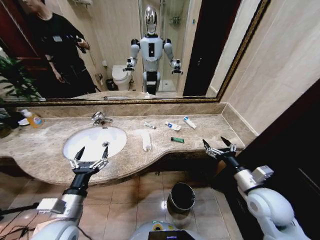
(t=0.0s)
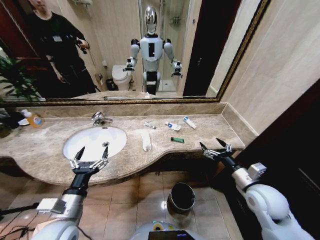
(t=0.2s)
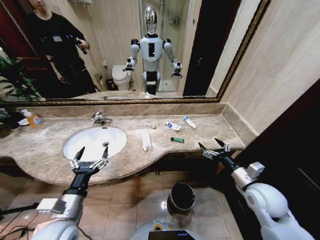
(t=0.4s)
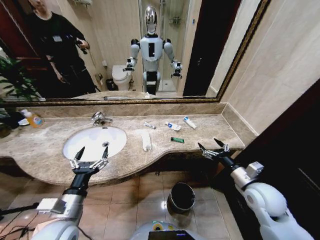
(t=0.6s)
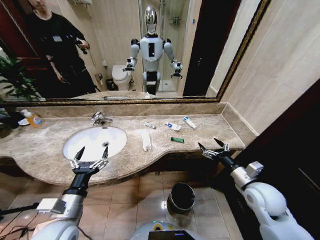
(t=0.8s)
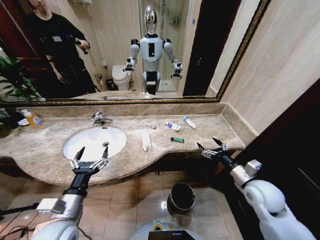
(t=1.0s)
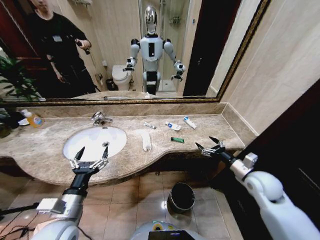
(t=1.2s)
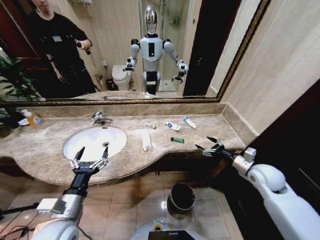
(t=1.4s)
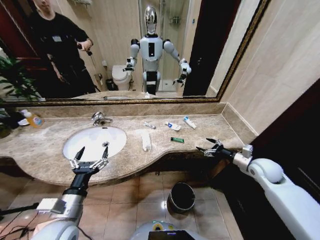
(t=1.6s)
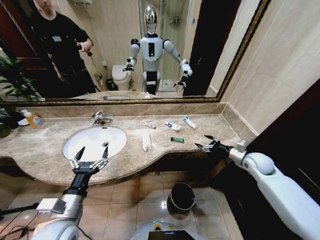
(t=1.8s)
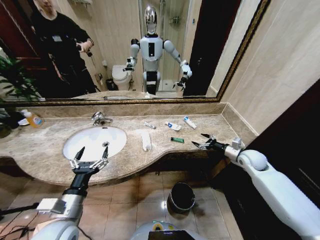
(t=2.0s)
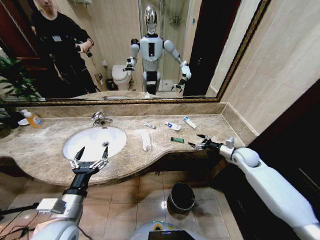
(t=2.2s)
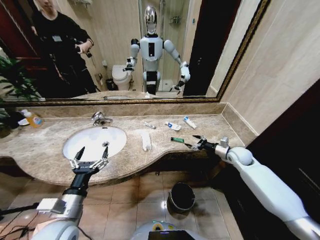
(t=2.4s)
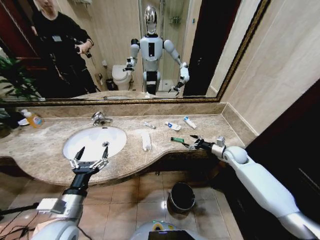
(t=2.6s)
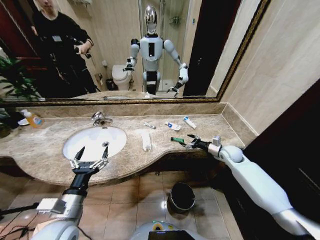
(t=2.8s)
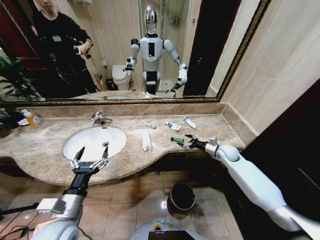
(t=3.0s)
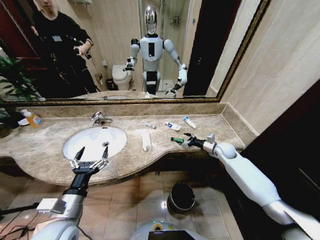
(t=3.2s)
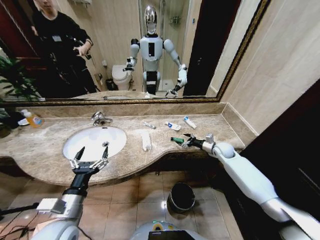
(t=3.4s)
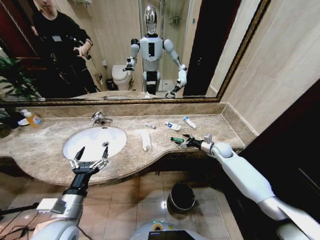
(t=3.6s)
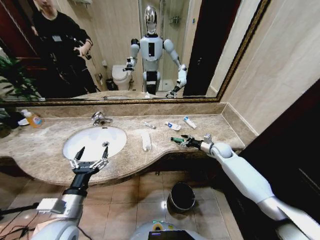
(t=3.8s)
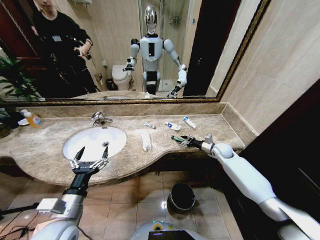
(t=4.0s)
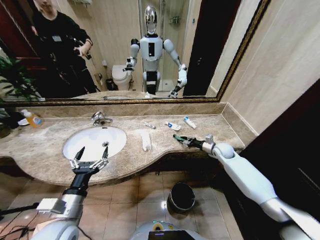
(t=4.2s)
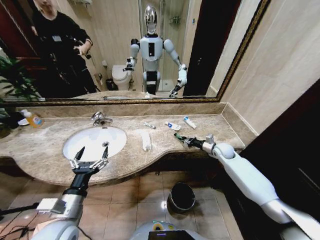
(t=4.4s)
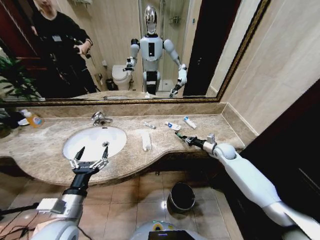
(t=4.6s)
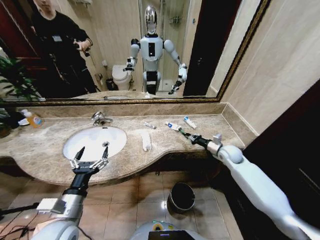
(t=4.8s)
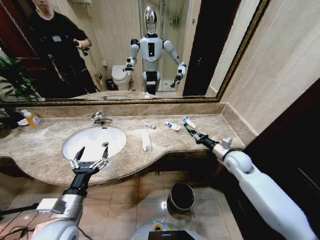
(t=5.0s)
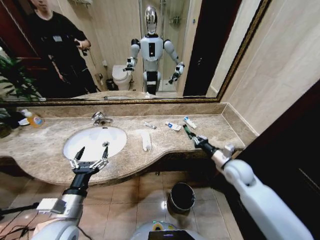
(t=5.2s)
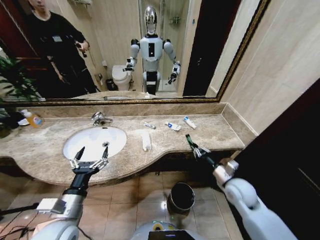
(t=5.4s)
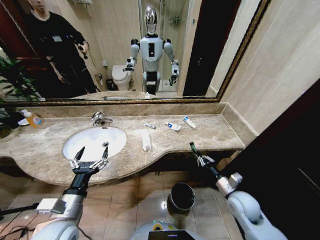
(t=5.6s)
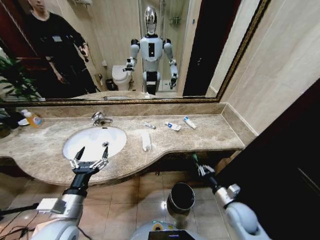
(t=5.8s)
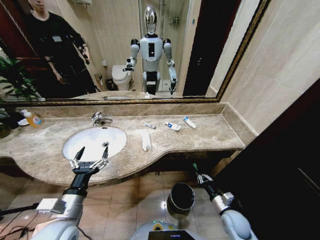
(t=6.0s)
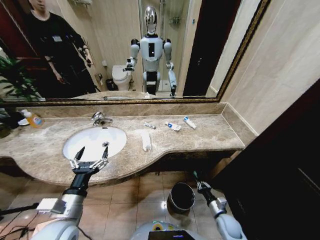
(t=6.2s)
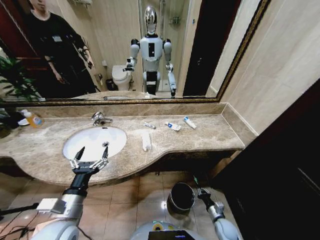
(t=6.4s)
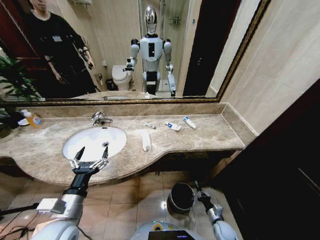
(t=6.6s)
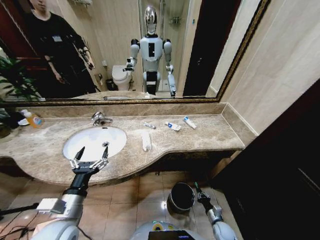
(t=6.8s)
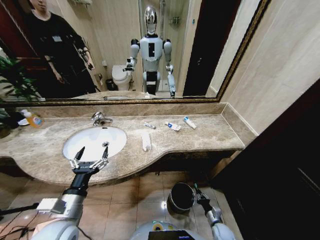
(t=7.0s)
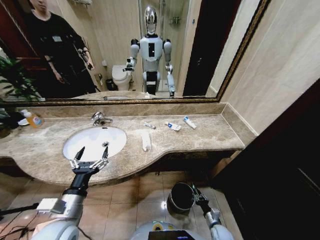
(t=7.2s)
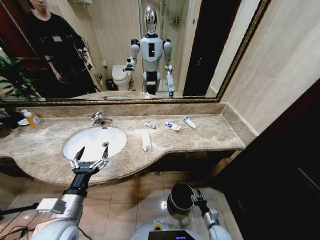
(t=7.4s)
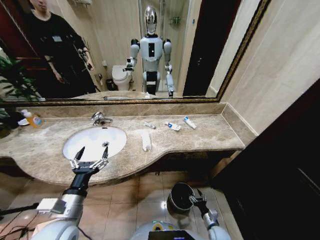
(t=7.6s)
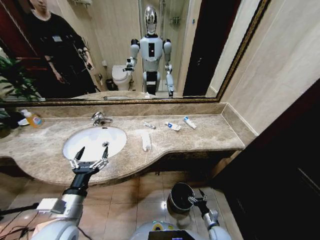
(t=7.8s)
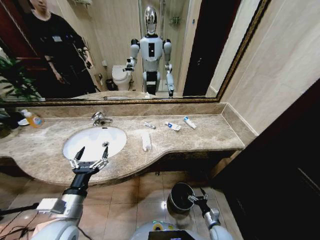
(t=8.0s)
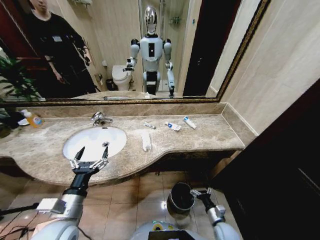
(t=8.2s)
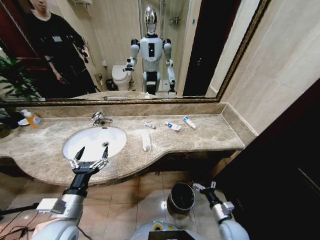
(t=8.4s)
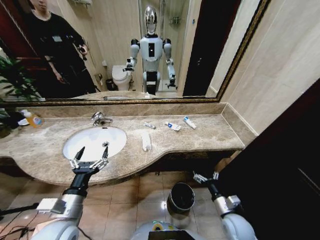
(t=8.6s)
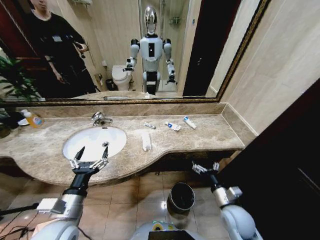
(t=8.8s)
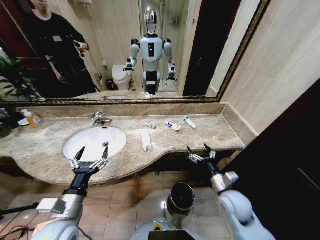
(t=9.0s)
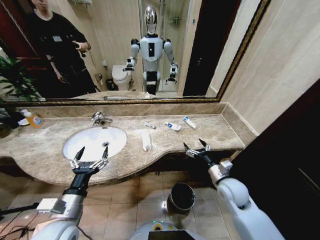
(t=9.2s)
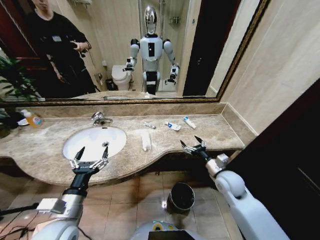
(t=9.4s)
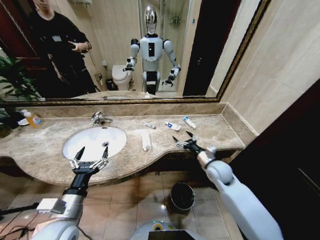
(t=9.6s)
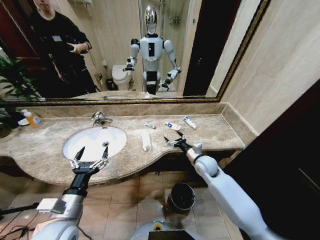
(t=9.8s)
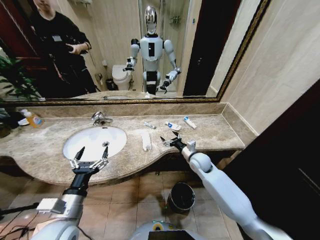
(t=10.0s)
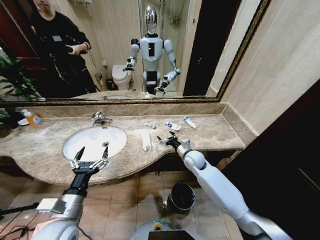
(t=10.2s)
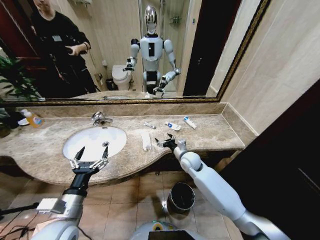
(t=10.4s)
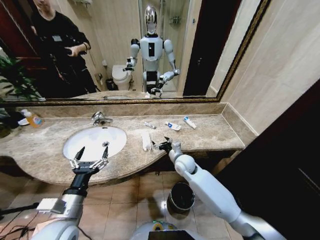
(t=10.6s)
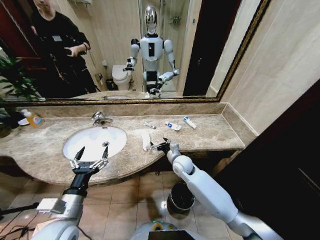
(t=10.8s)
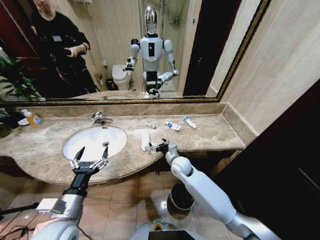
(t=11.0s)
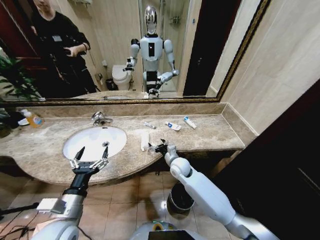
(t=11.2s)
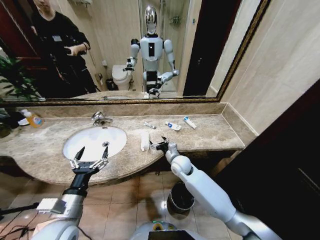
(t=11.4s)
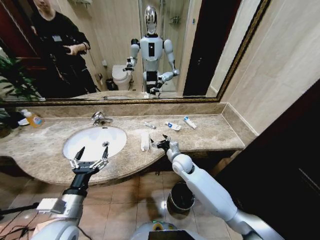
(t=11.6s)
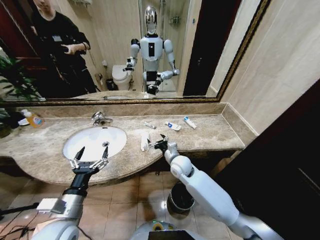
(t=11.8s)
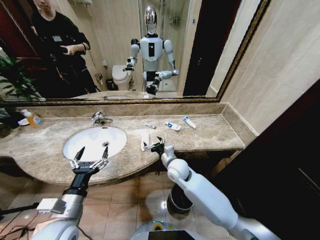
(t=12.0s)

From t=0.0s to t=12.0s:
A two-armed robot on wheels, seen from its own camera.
Task of the whole recording: Pick up the trash from the sink and place it in the trash bin.
From t=1.6s to t=3.0s: The right gripper travels forward, to the left and downward by roughly 15 cm.
From t=3.0s to t=4.4s: The right gripper closes its fingers.
From t=4.4s to t=6.0s: The right gripper shifts approximately 30 cm backward and downward.
From t=6.0s to t=7.6s: The right gripper travels downward by approximately 15 cm, and opens up.
From t=7.6s to t=9.0s: The right gripper goes roughly 30 cm upward.
From t=9.0s to t=10.4s: The right gripper shifts approximately 20 cm forward and to the left.
From t=10.4s to t=12.0s: The right gripper shifts some 10 cm to the left and backward.

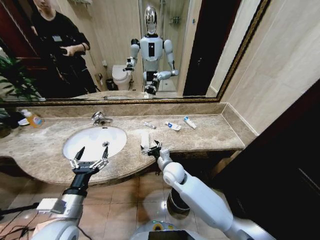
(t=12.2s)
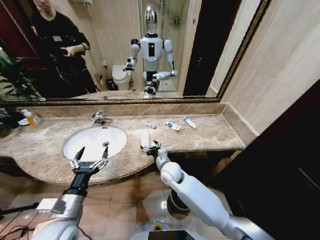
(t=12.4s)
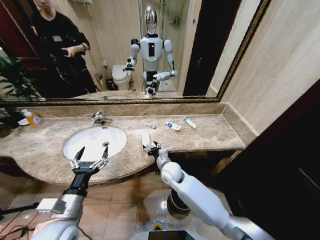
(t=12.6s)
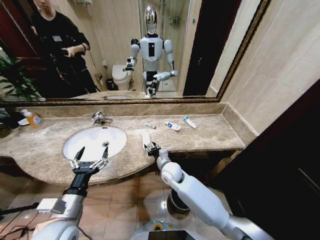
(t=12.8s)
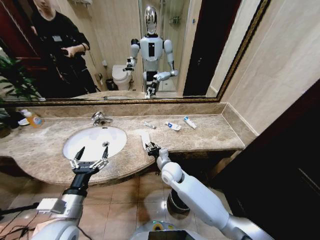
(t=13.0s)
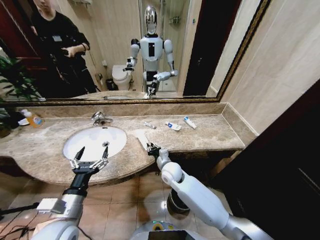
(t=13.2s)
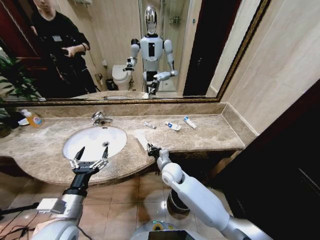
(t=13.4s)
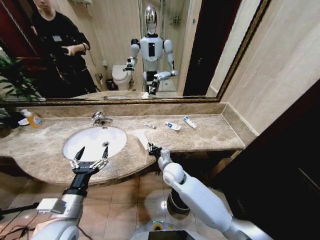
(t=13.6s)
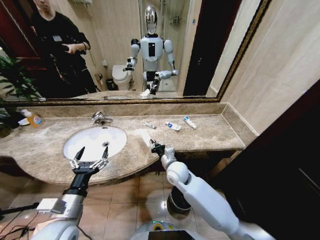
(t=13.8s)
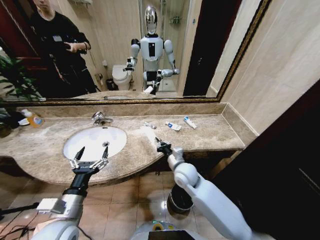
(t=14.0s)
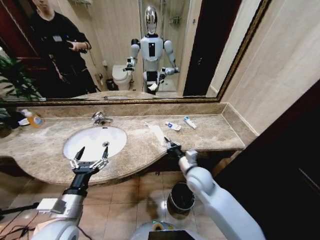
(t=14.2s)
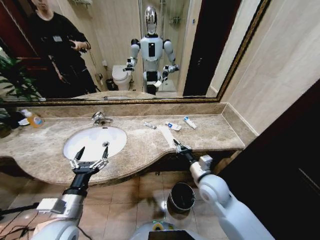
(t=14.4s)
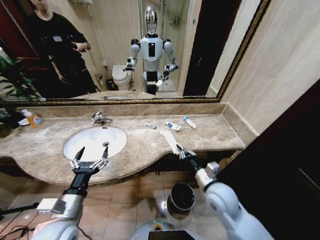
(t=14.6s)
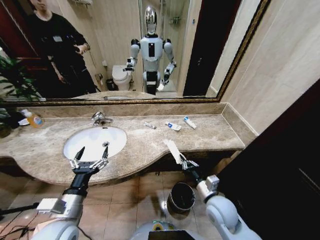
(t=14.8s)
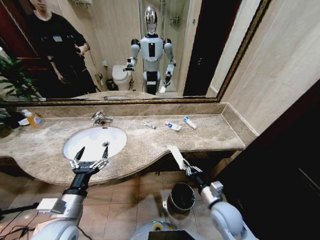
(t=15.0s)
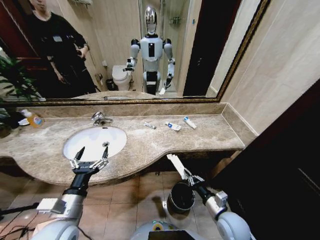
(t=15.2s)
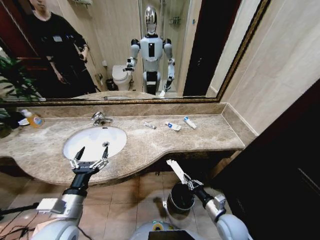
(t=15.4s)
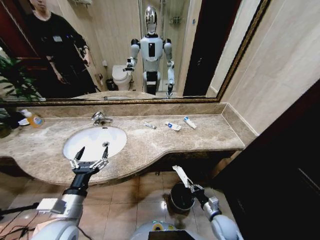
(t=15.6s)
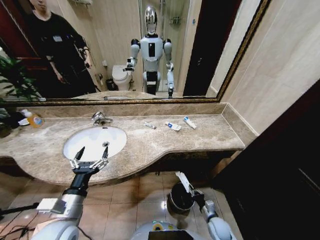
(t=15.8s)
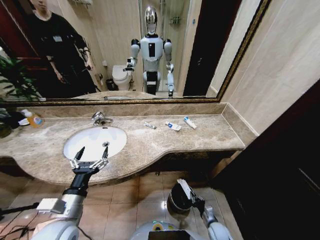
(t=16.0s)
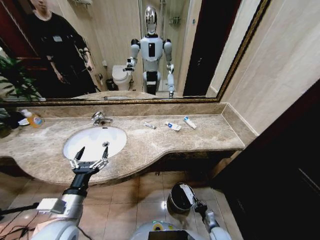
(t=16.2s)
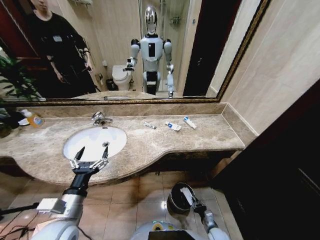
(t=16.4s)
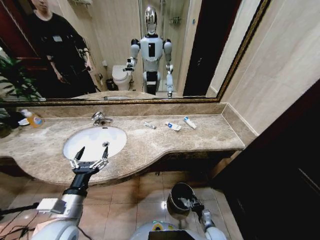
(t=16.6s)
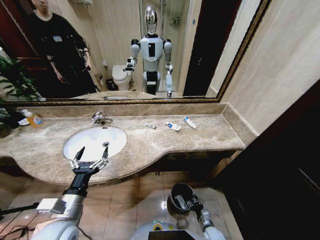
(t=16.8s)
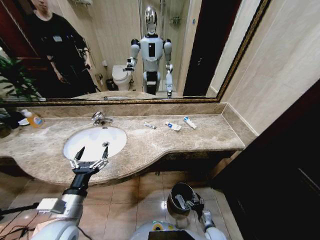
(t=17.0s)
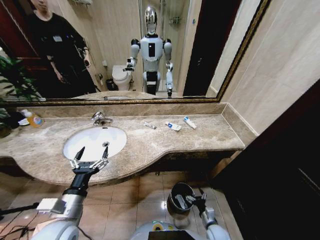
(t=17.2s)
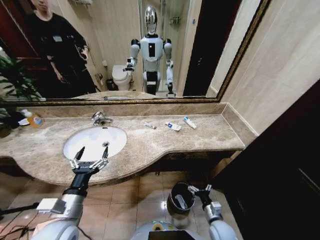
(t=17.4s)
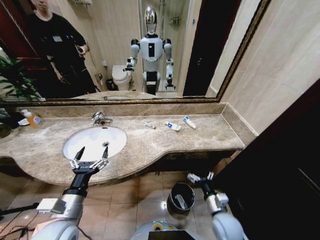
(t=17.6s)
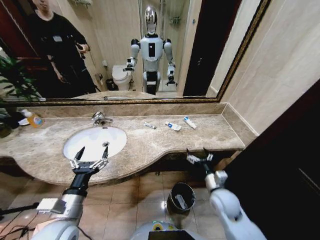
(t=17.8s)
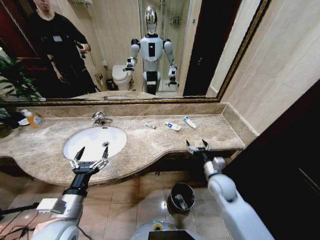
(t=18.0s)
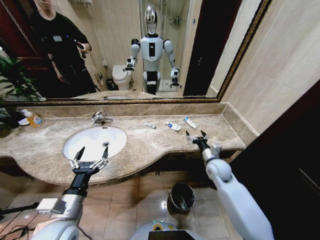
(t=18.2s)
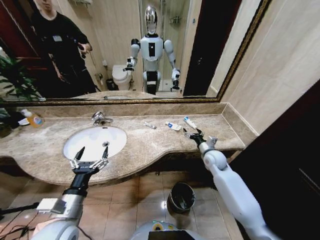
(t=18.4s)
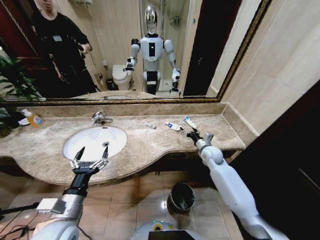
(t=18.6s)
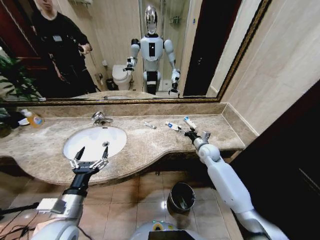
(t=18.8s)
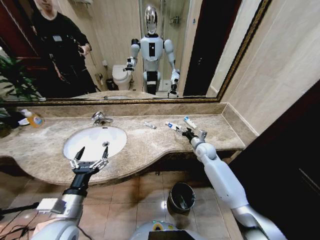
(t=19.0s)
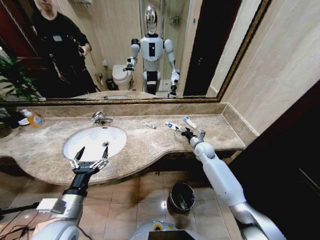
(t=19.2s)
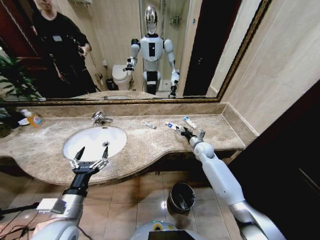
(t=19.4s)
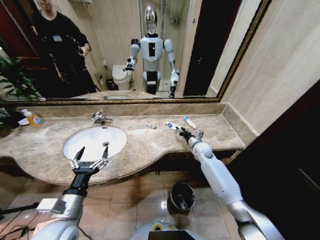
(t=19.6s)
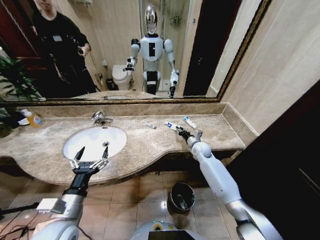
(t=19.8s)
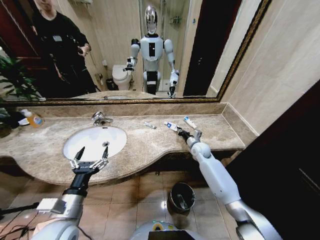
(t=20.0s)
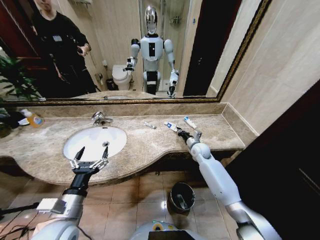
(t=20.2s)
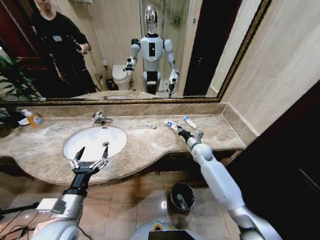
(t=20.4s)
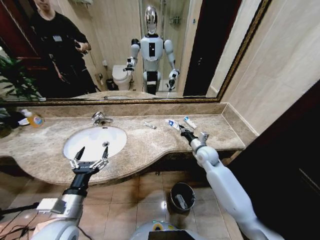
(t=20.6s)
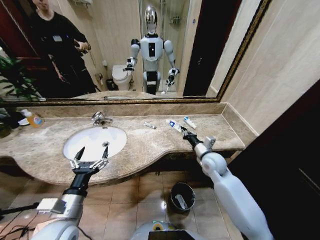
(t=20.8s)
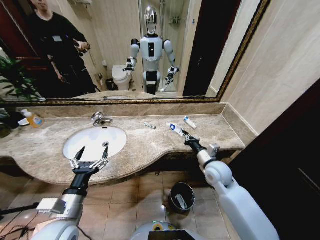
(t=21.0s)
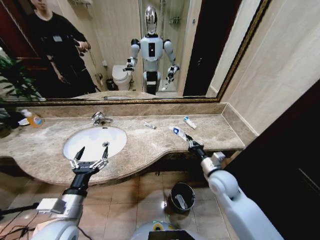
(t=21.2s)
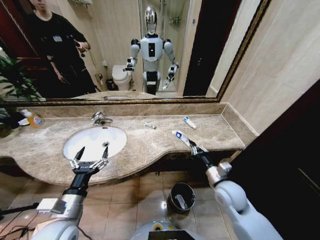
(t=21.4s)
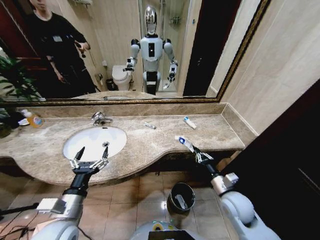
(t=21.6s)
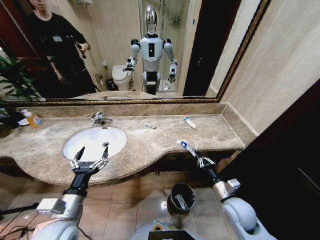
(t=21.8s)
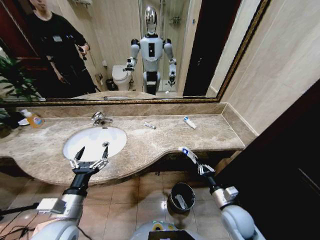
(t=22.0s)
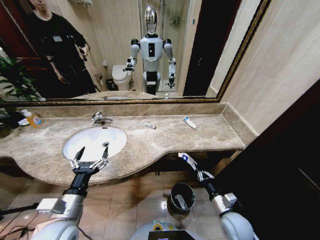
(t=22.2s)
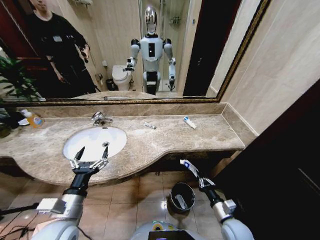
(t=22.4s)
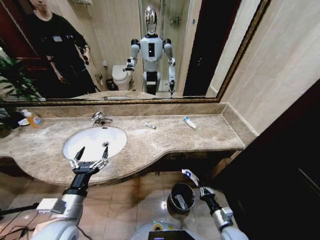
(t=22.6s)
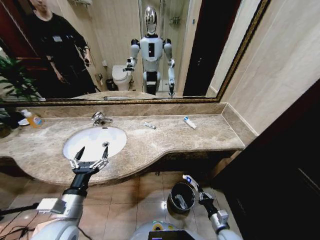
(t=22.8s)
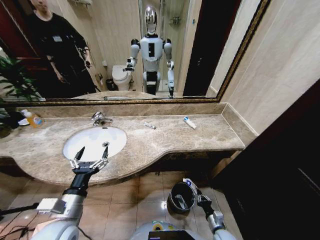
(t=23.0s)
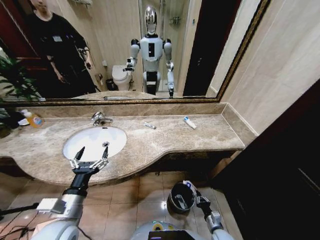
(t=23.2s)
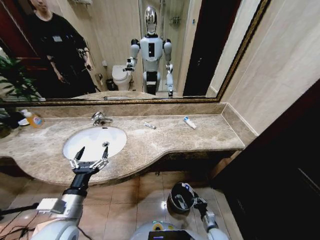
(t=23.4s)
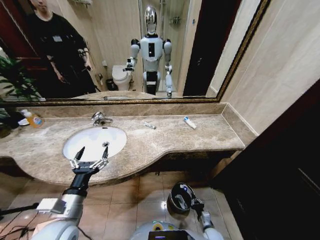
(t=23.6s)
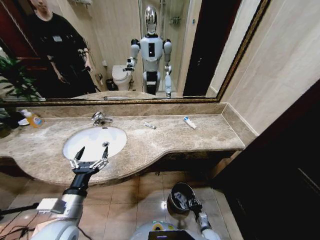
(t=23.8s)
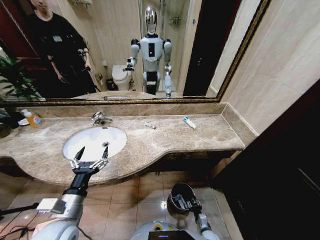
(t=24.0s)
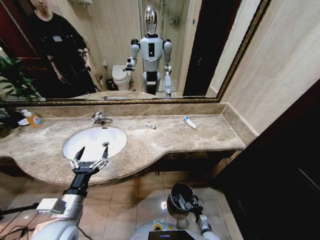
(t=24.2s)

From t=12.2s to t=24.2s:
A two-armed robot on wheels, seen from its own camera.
Task of the whole recording: Pick up the trash from the sink and place it in the trash bin.
From t=12.2s to t=13.8s: The right gripper closes its fingers.
From t=13.8s to t=15.2s: The right gripper moves to the right and backward, about 25 cm.
From t=15.2s to t=16.6s: The right gripper goes approximately 25 cm downward.
From t=16.6s to t=18.2s: The right gripper is displaced upward and forward by approximately 40 cm, and opens up.
From t=18.2s to t=19.8s: The right gripper heads forward, covering about 15 cm, and closes its fingers.
From t=19.8s to t=21.2s: The right gripper heads backward, covering approximately 20 cm.
From t=21.2s to t=22.6s: The right gripper heads downward and backward, covering some 25 cm.
From t=22.6s to t=24.2s: The right gripper travels downward by roughly 15 cm, and opens its fingers.
